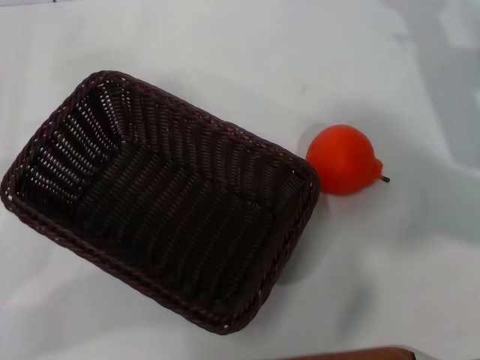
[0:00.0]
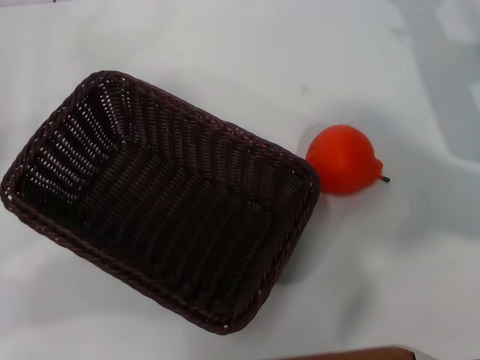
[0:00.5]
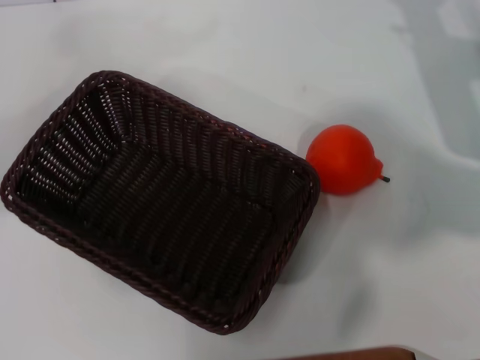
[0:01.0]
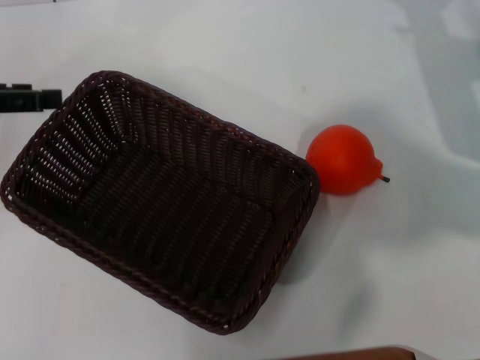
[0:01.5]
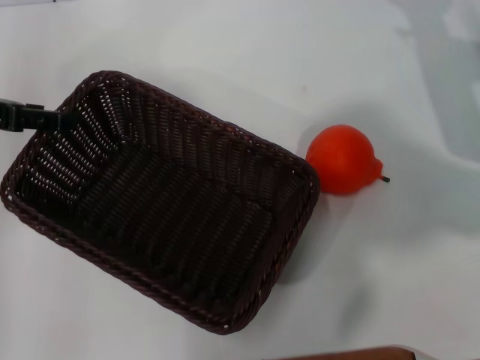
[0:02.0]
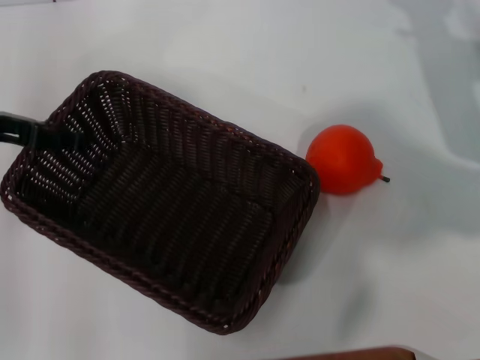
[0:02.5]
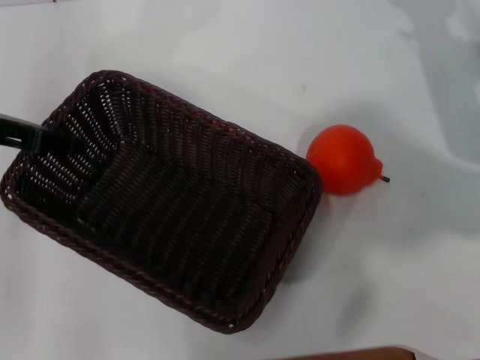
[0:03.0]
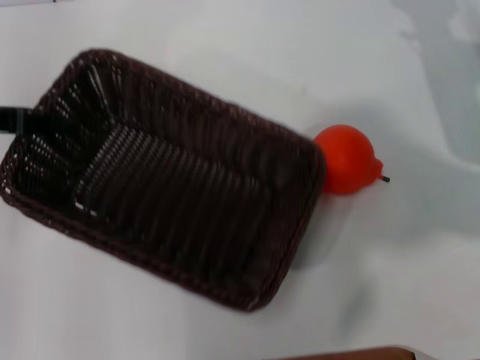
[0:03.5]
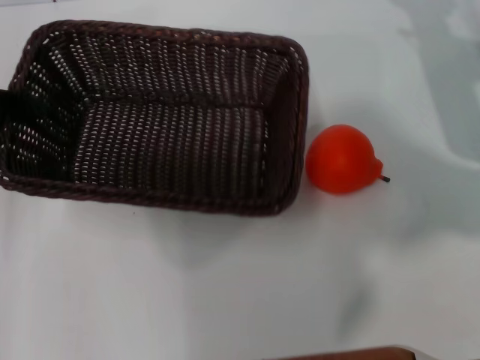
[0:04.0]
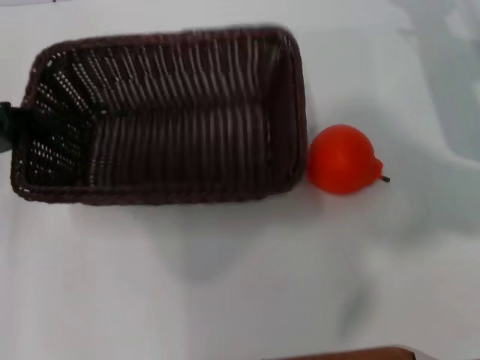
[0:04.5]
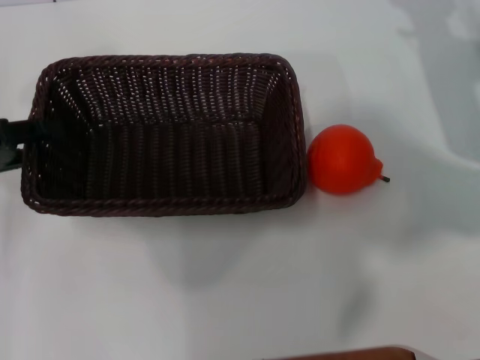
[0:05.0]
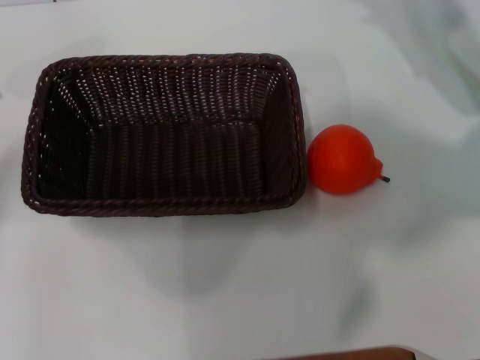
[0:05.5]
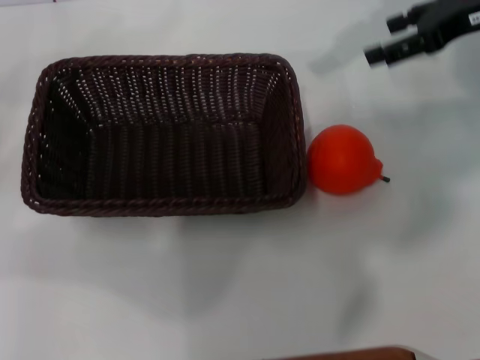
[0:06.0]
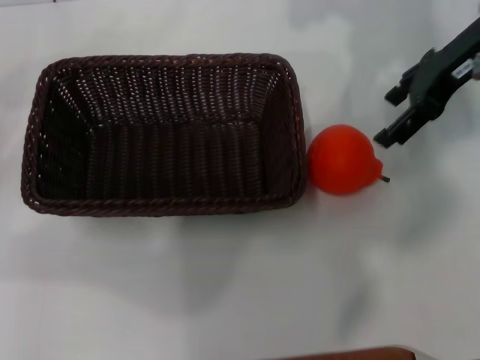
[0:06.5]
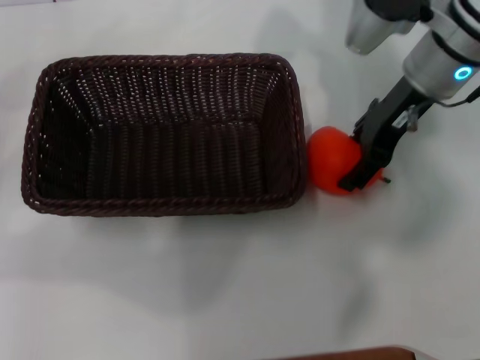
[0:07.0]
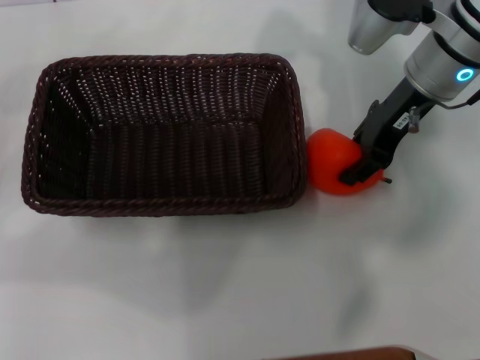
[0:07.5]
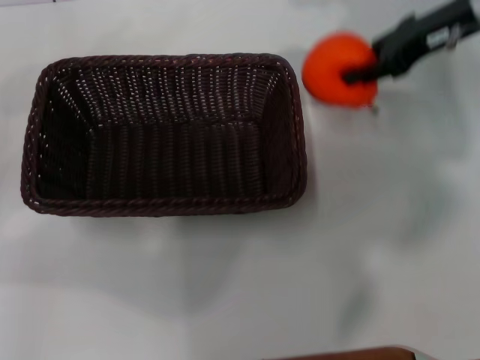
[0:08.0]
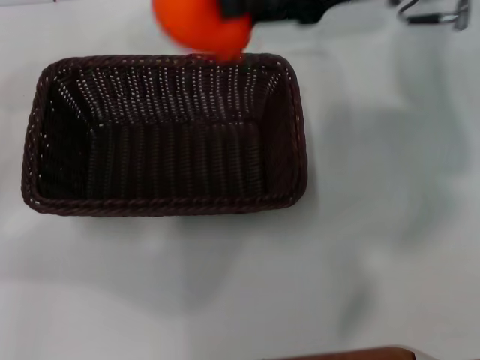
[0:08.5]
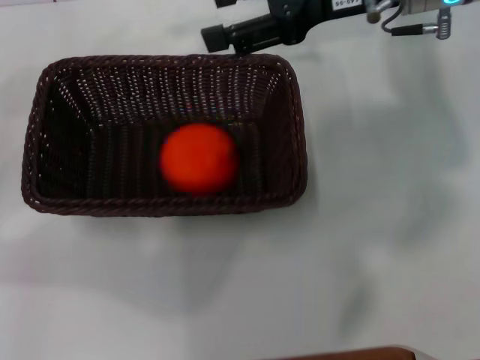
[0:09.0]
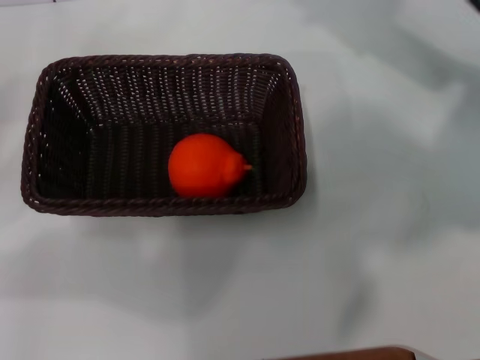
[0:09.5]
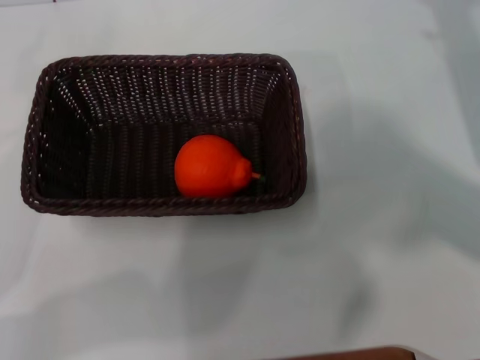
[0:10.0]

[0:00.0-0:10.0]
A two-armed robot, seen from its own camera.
Task of the whole recording: the left gripper pick up the black basket and place it horizontally in the middle of the table, the right gripper pick up the orange and place it into the black basket.
Step, 0:00.0 to 0:03.5: Pick up the dark basket with the left gripper.
Step, 0:04.0 to 0:05.0: Place the dark basket in the center of view with the left gripper.
Step, 0:05.5 to 0:07.5: Pick up the orange with the right gripper.
Step, 0:08.0 to 0:09.0: Place the orange into the dark basket with the right gripper.
0:00.0 to 0:02.0: The left gripper is displaced forward and upward by approximately 15 cm.
0:02.0 to 0:04.0: The left gripper closes its fingers.
0:04.0 to 0:06.0: The left gripper travels to the left and backward by roughly 10 cm, and opens. The right gripper moves upward, some 10 cm.
0:06.0 to 0:08.0: The right gripper closes.
0:08.0 to 0:10.0: The right gripper goes roughly 15 cm backward, downward and to the right, and opens up. Meanwhile the left gripper is displaced downward by approximately 5 cm.
